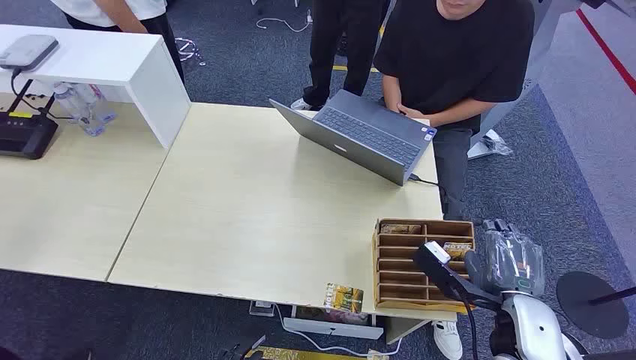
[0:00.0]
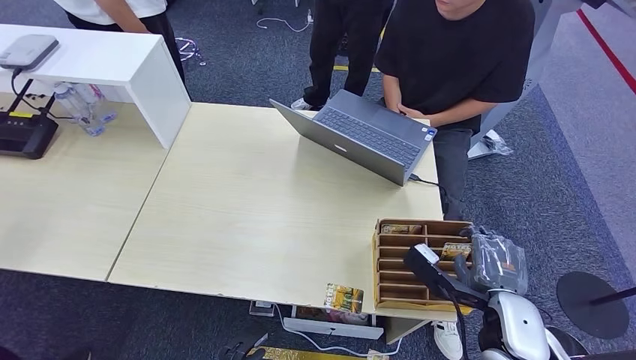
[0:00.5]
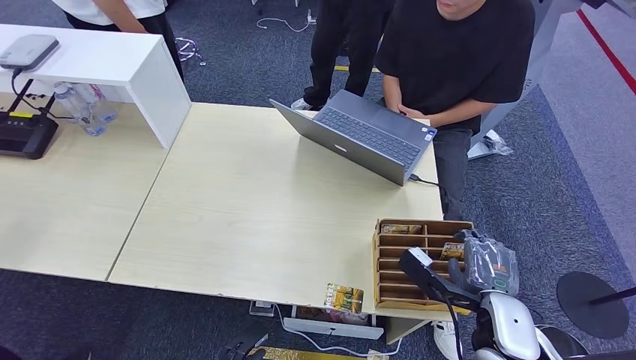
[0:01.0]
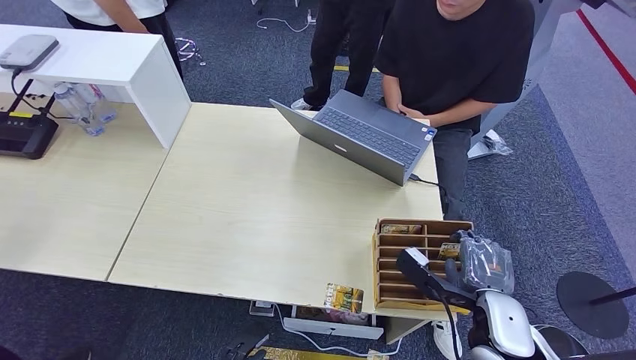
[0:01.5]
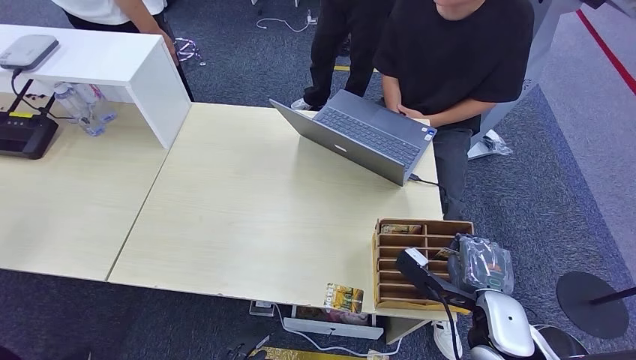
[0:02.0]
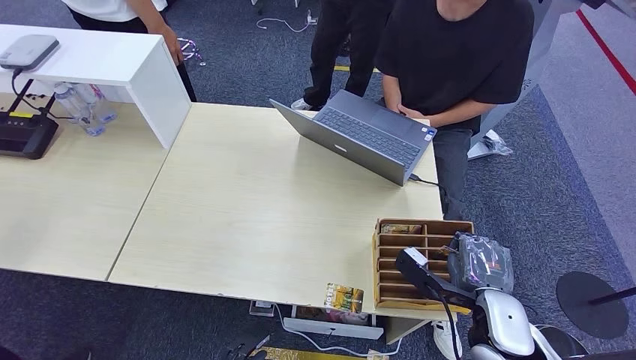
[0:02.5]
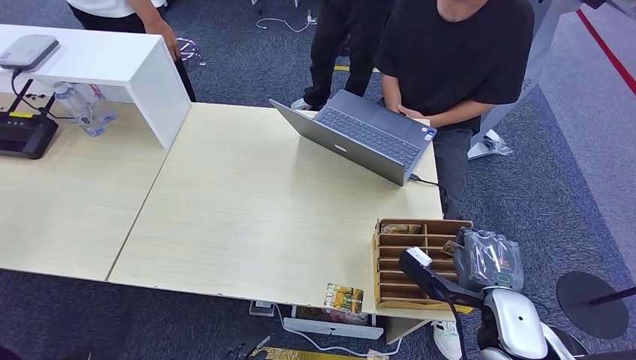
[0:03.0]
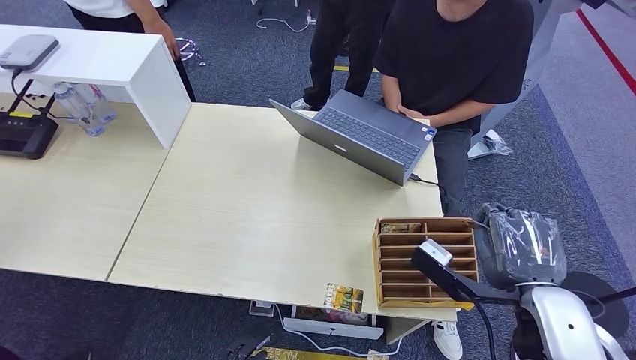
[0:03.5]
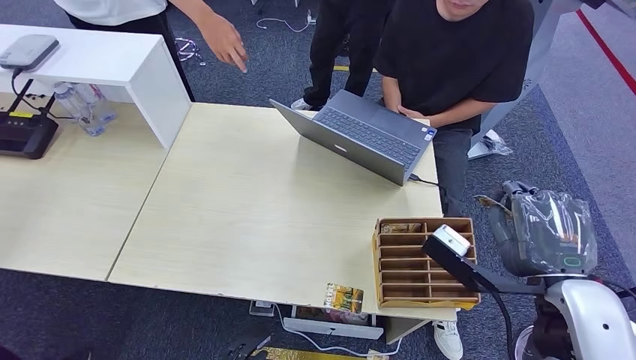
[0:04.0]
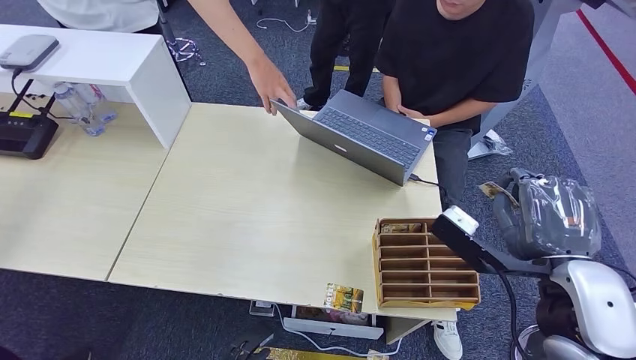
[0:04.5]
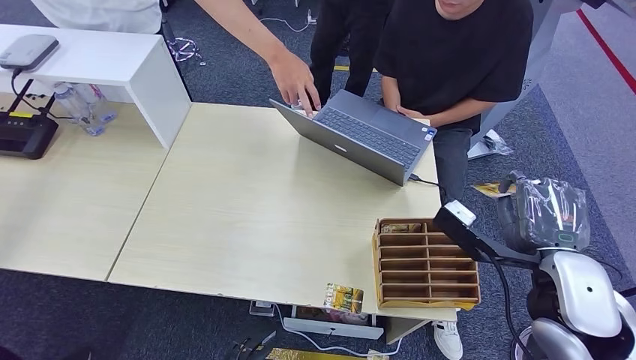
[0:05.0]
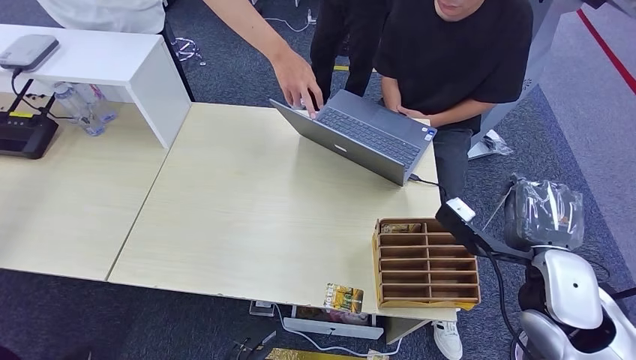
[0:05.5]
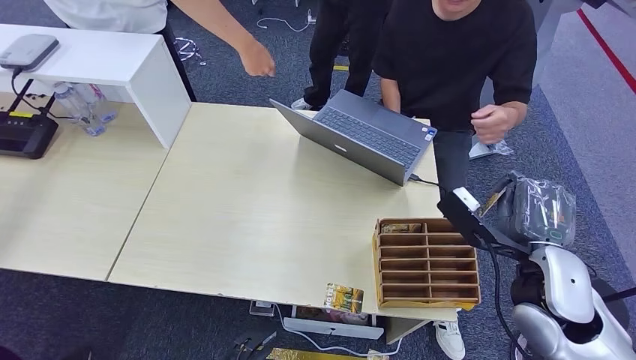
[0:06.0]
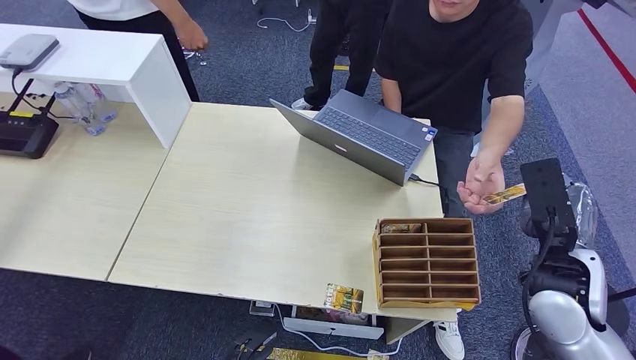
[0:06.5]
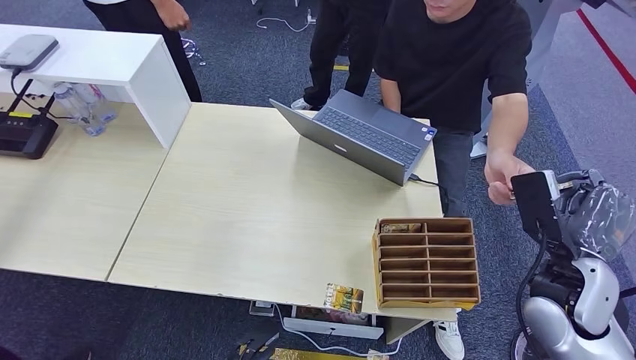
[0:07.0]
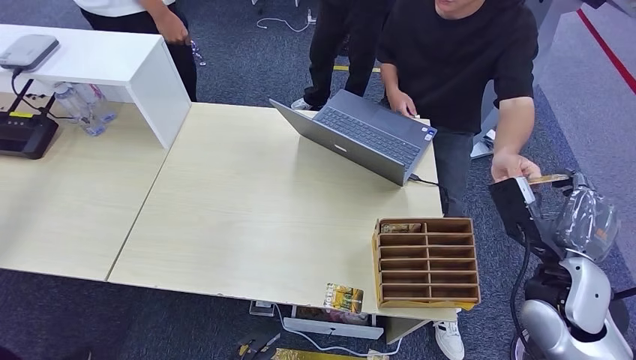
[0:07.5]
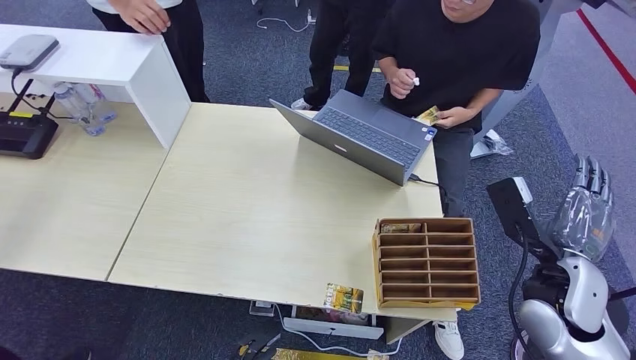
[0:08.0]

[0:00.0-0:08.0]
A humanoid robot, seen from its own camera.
Step, 0:00.0 to 0:03.5: Pick up the room card from the card holder.
Step, 0:04.0 to 0:08.0: Hand the room card to the target.
0:02.0 to 0:04.0: The right hand heads upward, covering roughly 15 cm.
0:04.0 to 0:06.0: The right hand travels downward by approximately 5 cm.
